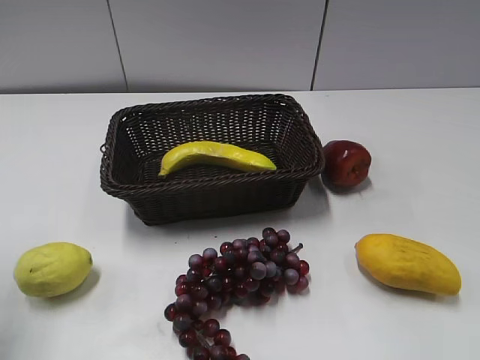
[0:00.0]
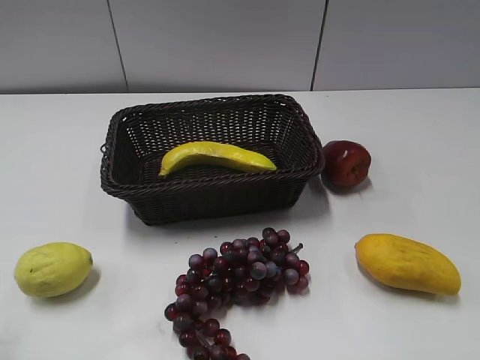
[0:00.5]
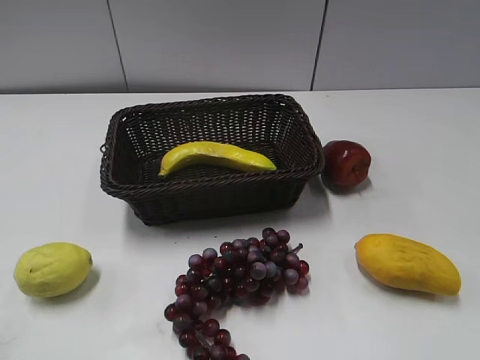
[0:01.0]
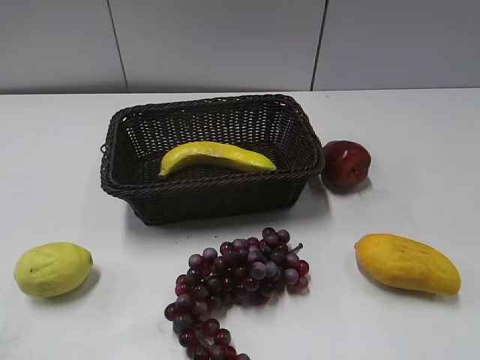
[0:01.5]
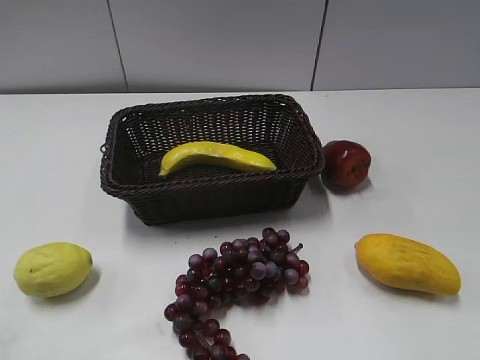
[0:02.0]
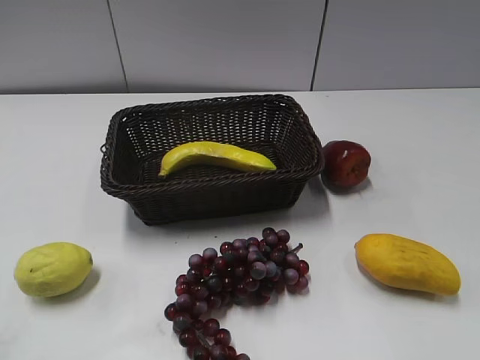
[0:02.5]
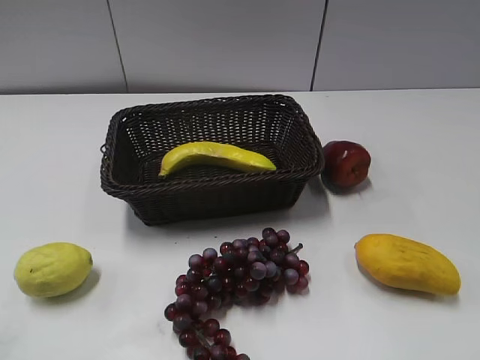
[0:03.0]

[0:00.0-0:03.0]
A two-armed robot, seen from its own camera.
0:00.0 to 0:01.5: The left gripper heads backward, covering roughly 15 cm.
